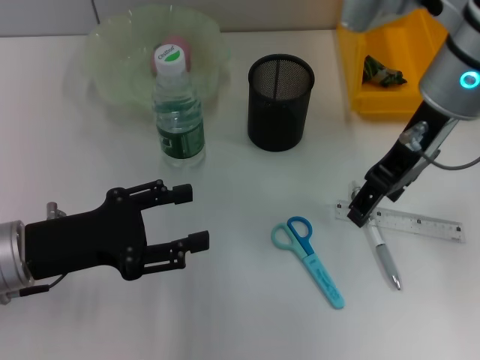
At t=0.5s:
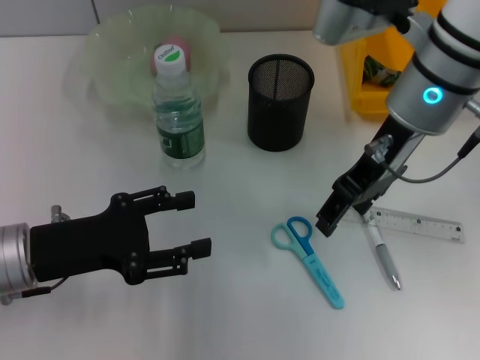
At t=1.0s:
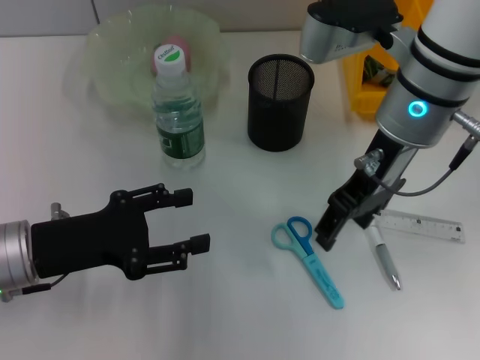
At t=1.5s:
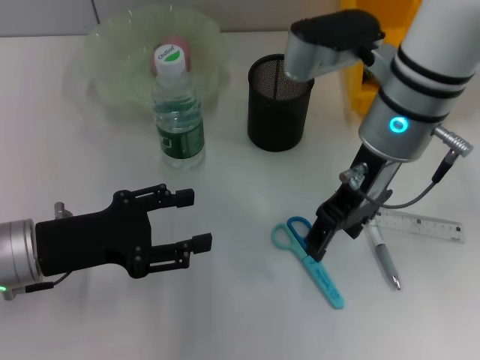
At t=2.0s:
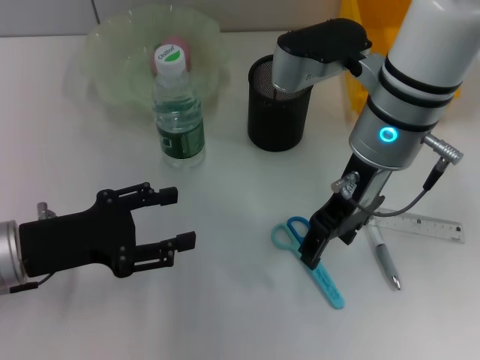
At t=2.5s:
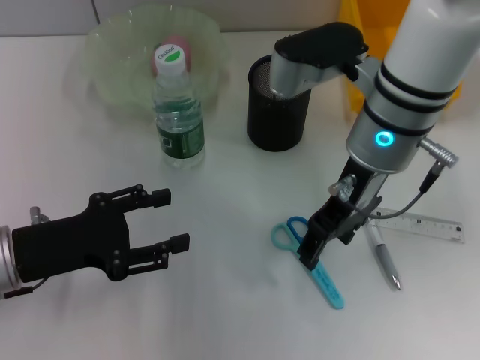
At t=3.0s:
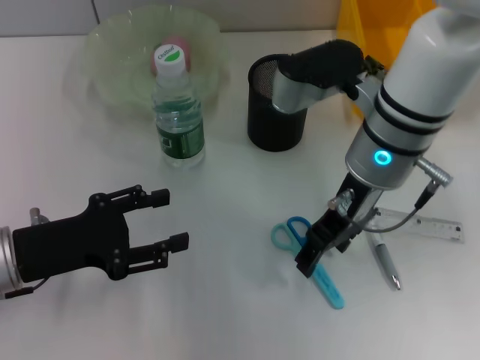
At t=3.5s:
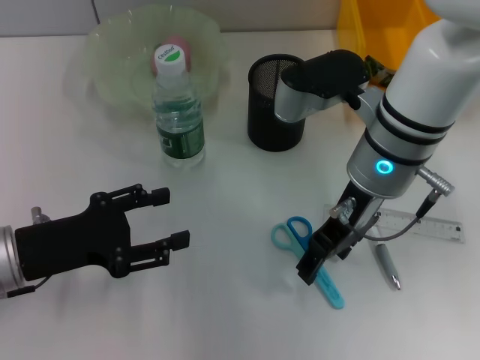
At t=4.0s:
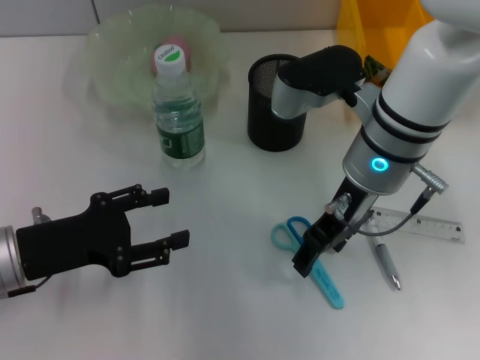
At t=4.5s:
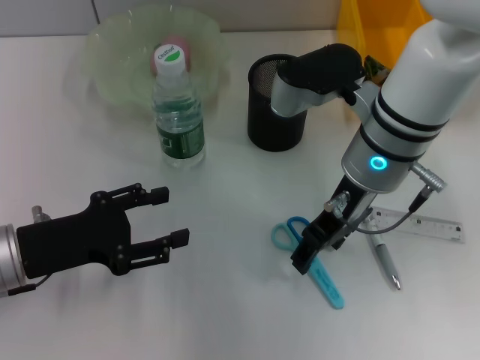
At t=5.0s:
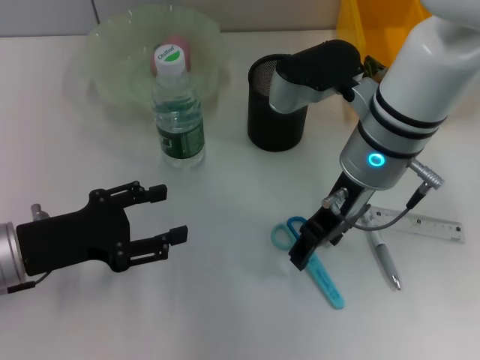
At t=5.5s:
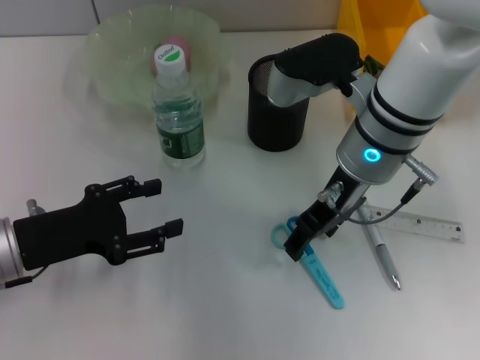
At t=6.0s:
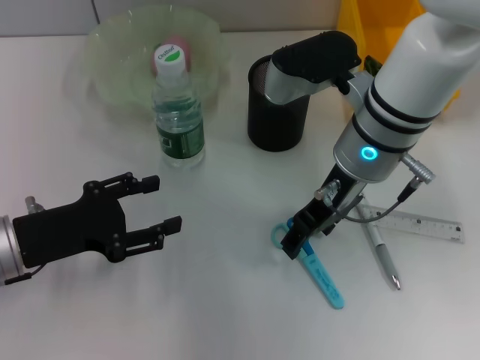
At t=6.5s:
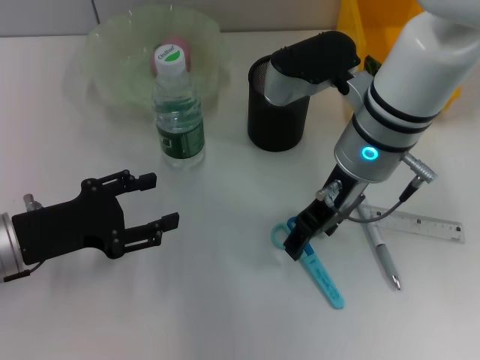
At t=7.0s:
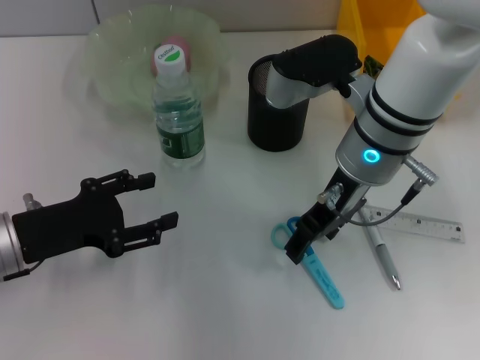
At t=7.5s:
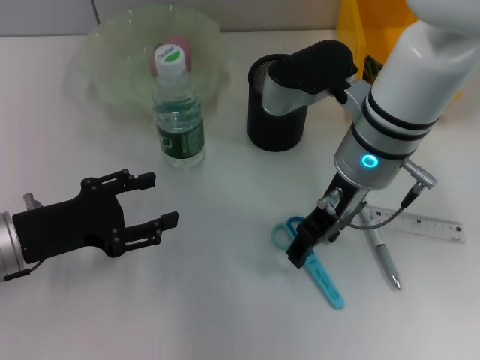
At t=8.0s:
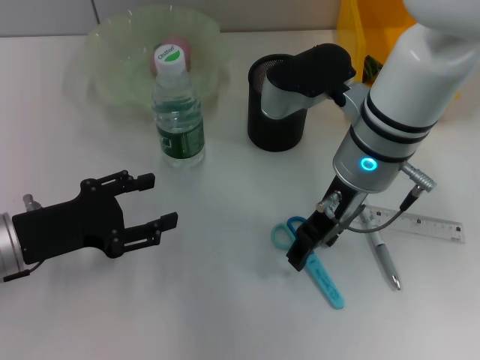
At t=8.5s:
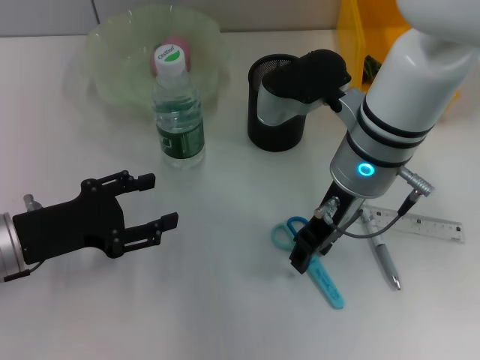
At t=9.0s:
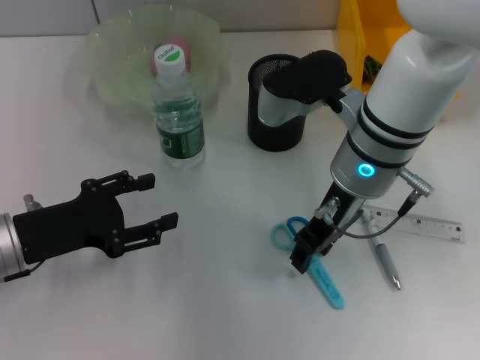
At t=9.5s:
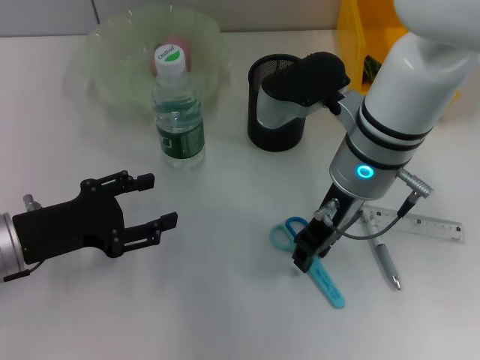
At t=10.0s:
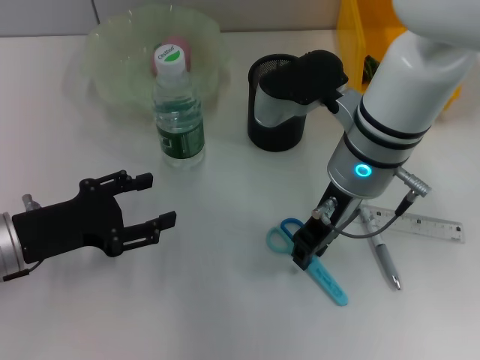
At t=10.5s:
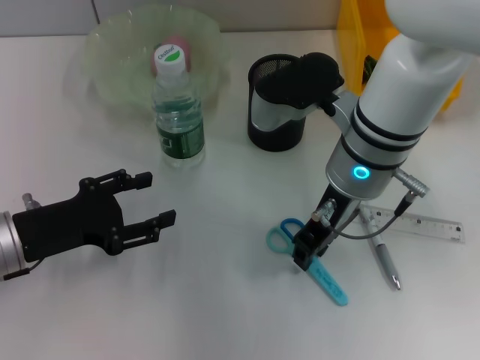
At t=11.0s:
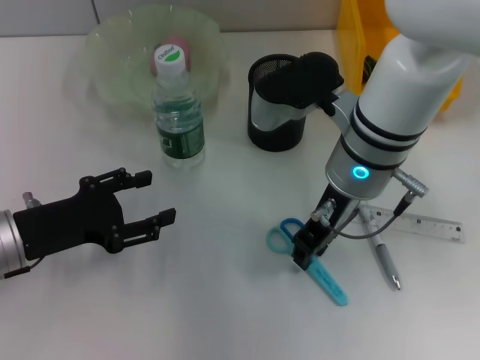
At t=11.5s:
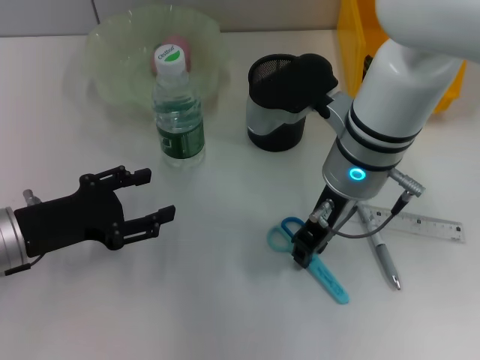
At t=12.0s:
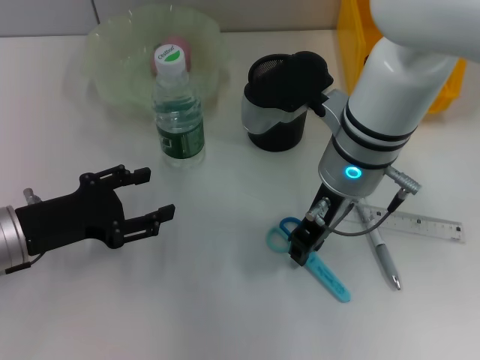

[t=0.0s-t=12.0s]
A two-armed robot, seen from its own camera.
t=0.0s to t=2.0s: The right gripper is displaced to the left by approximately 5 cm.
t=2.0s to t=4.0s: There are only small adjustments of the grippers.
t=4.0s to t=6.0s: Both grippers stay put.
t=6.0s to t=8.0s: The two grippers keep their place.
t=8.0s to t=10.0s: The right gripper closes its fingers.
t=10.0s to t=12.0s: The grippers move only a little.

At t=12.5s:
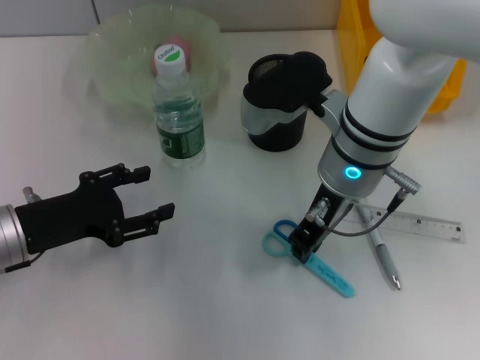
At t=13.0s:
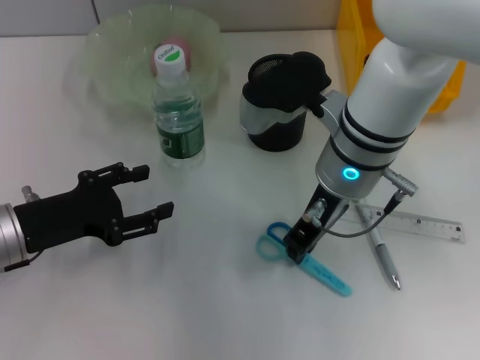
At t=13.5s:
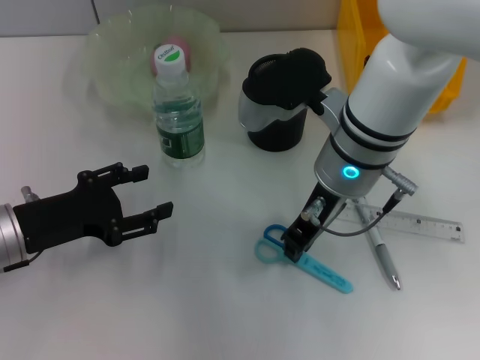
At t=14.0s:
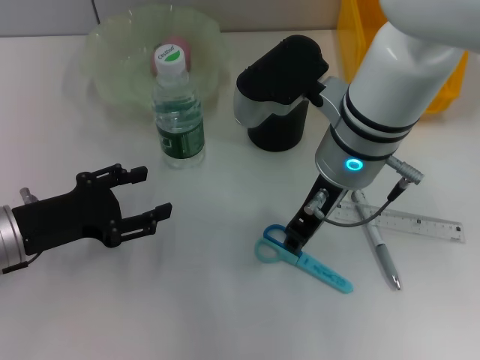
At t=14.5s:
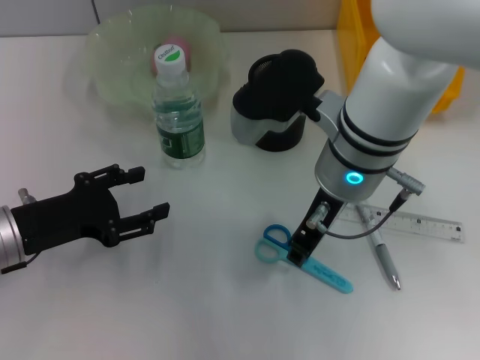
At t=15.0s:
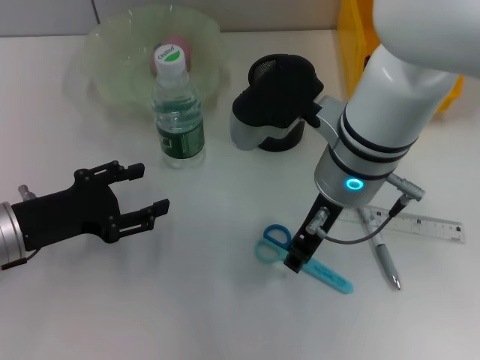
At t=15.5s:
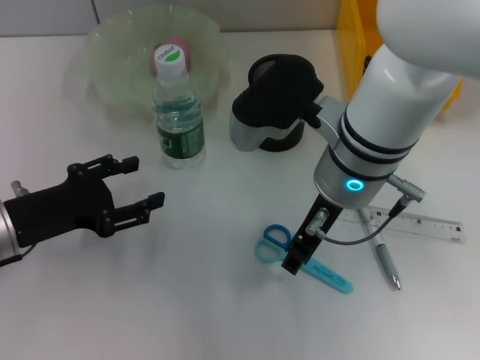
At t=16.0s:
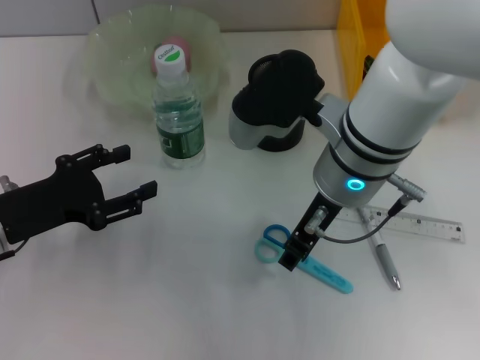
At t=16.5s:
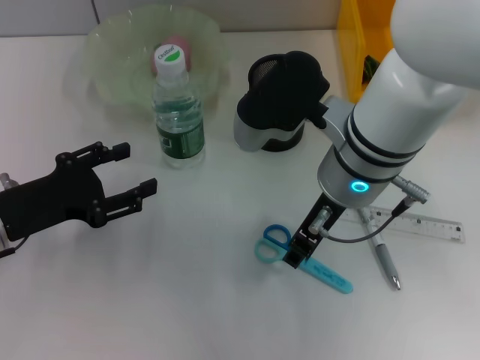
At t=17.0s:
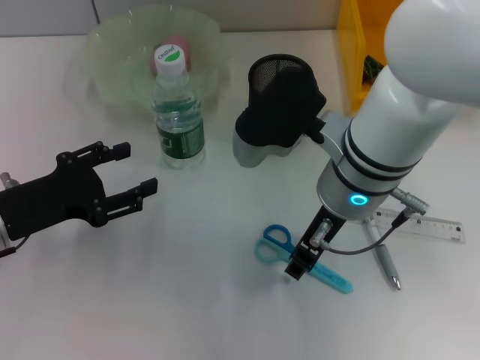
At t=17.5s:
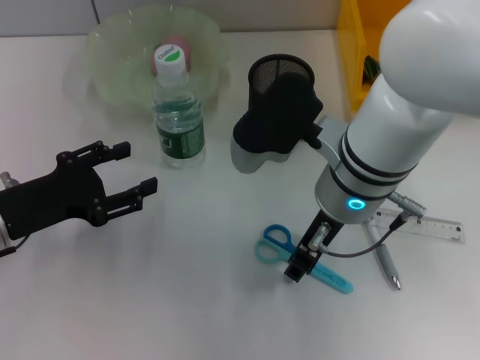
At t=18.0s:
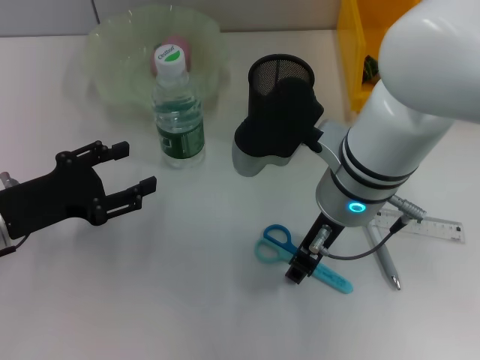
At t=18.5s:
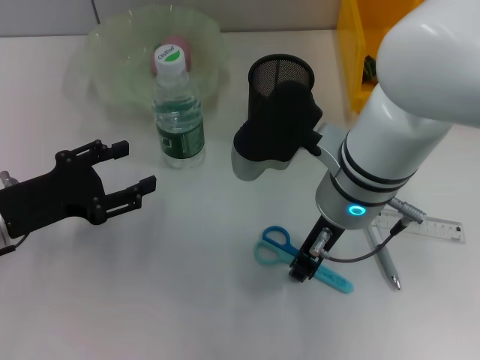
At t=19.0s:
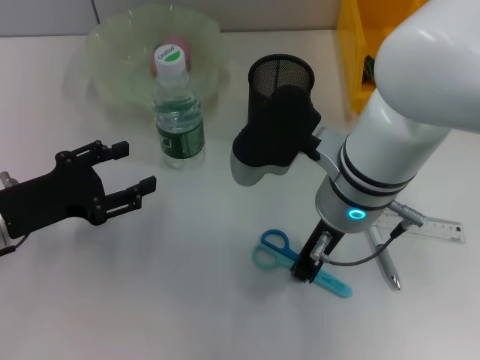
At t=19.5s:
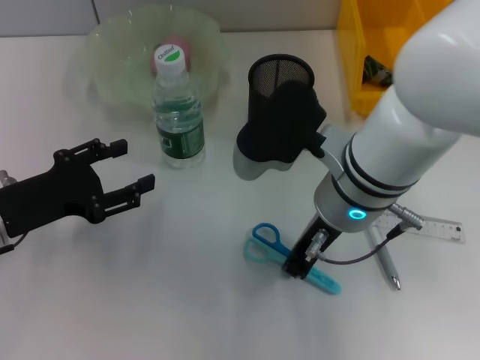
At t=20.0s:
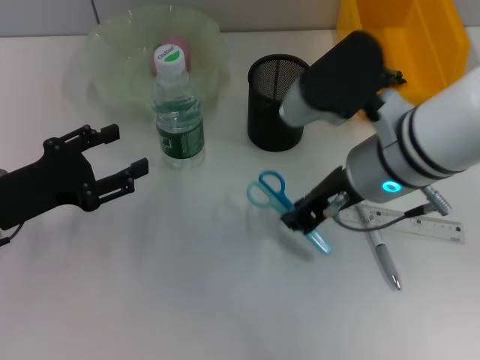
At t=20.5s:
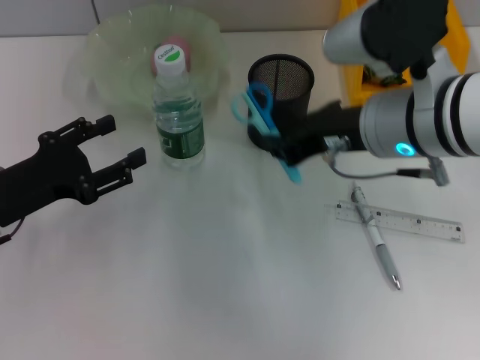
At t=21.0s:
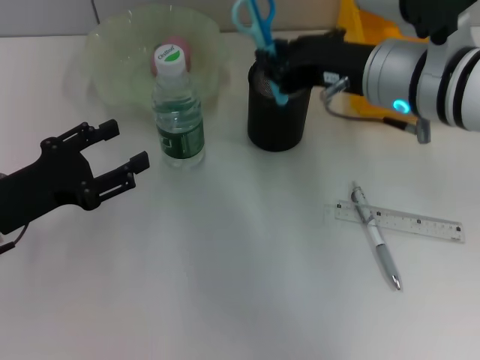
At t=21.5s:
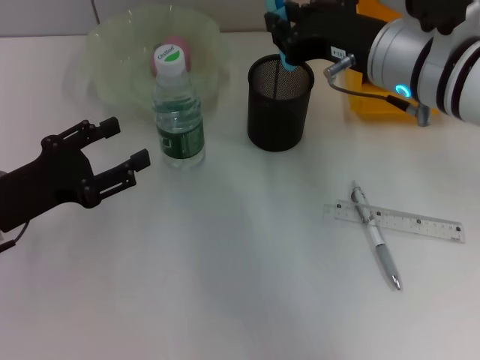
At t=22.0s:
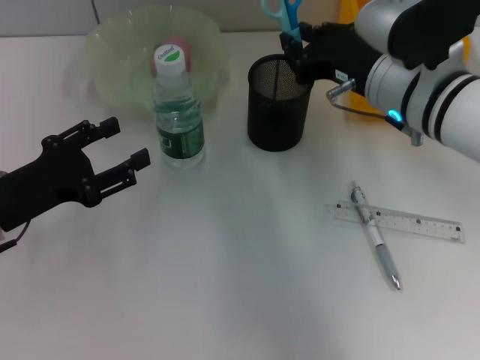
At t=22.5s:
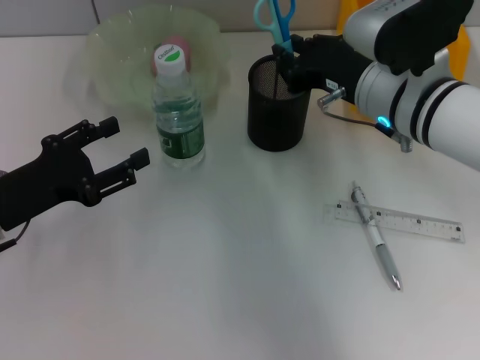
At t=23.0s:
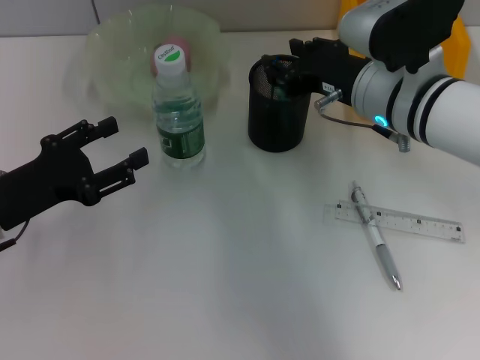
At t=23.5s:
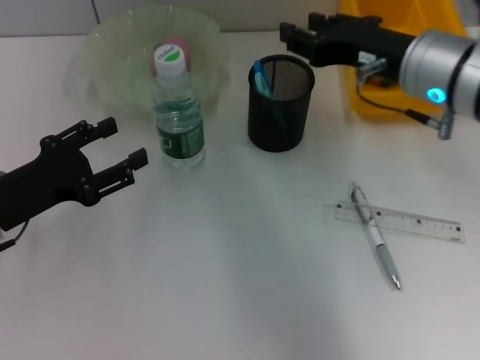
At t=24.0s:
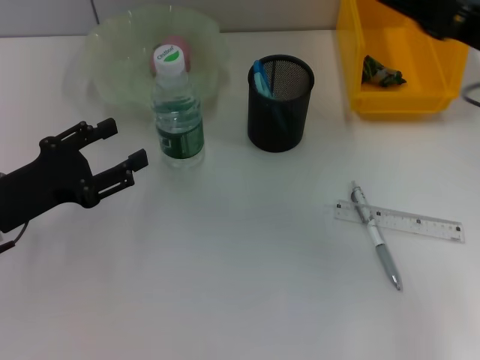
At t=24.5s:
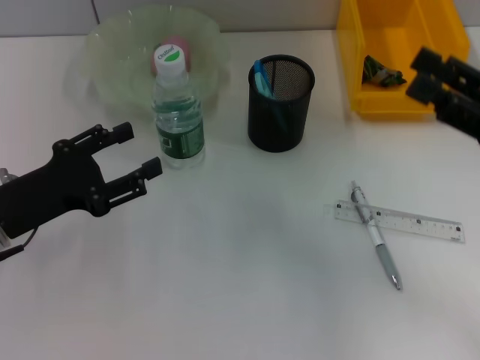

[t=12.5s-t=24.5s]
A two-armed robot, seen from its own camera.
Step, t=12.5s to t=18.5s: Grab the blue scissors with the right hand.
Step, t=19.0s to t=22.5s: Place the blue scissors into the pen holder with the right hand.
t=12.5s to t=18.5s: There are only small adjustments of the grippers.
t=18.5s to t=20.5s: The right gripper moves to the right, about 5 cm.
t=20.5s to t=22.5s: The right gripper changes place by roughly 5 cm.
t=22.5s to t=24.5s: The right gripper heads to the right and backward, covering some 20 cm, and opens.

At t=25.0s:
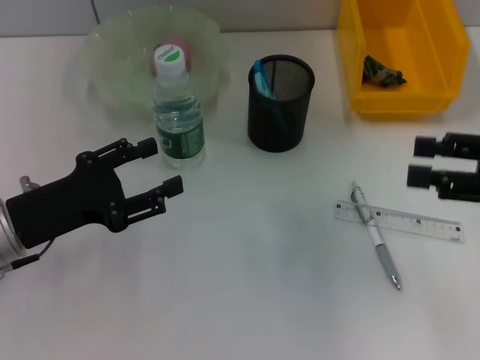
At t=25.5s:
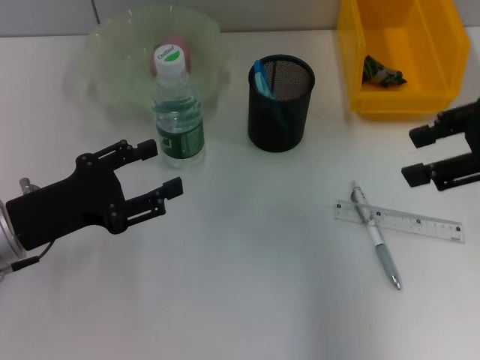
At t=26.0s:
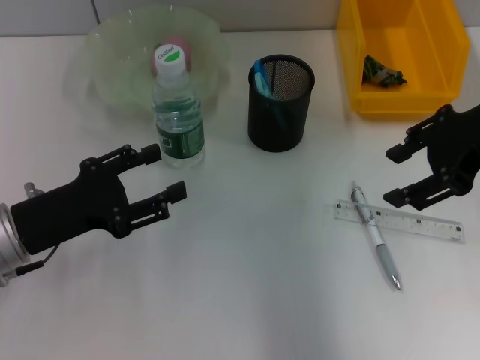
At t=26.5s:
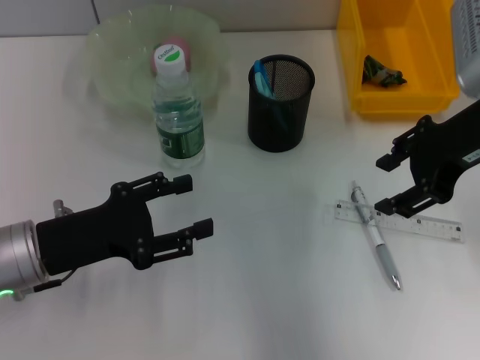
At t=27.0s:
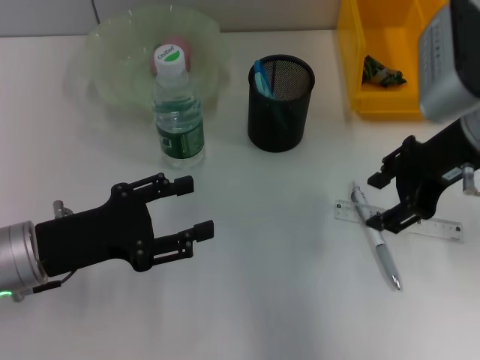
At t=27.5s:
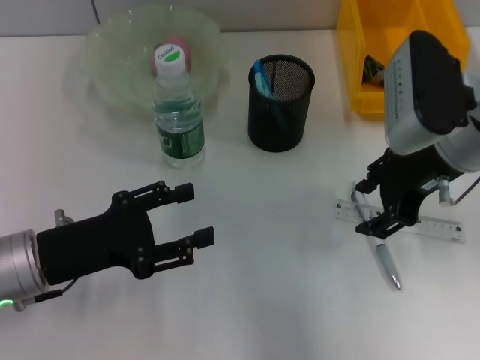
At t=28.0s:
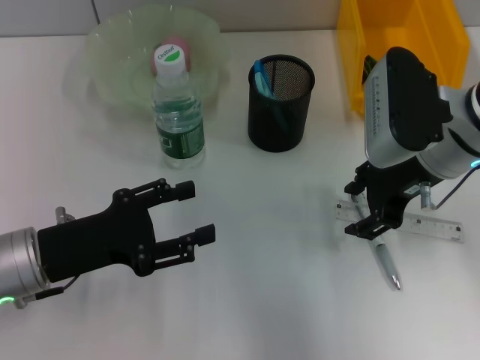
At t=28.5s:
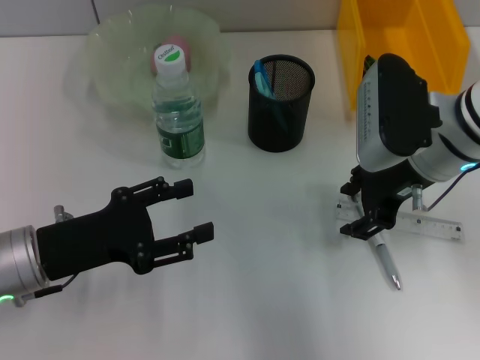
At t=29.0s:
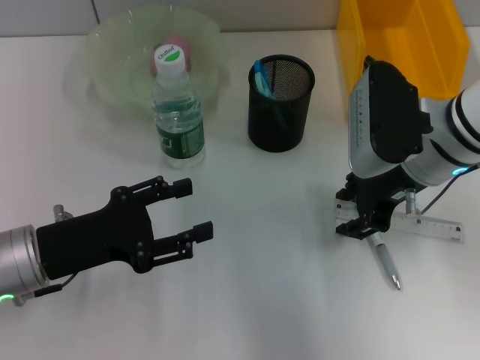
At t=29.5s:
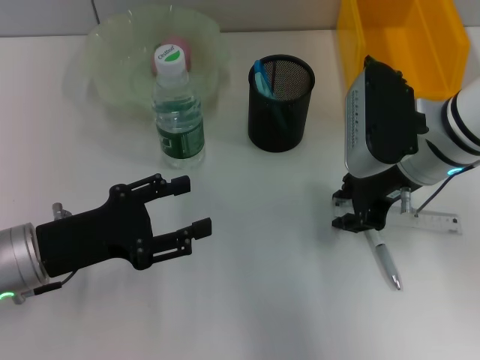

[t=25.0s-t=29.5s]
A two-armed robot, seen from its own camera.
Step, t=25.0s to t=29.5s: Grab the ruler with the right hand.
t=25.0s to t=27.0s: The right gripper shifts roughly 15 cm to the left and forward.
t=27.0s to t=29.5s: The right gripper is displaced downward by about 5 cm, and closes.
